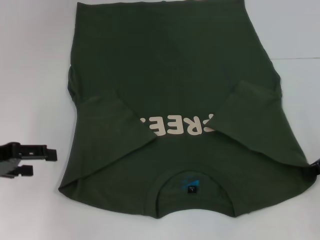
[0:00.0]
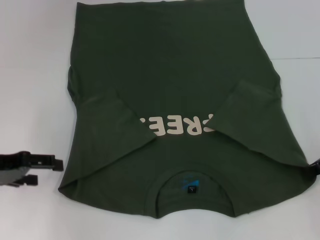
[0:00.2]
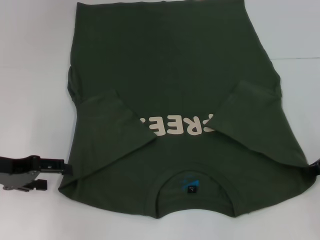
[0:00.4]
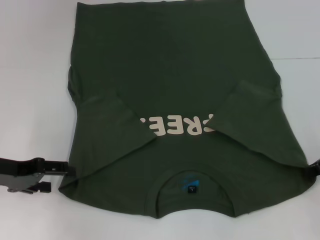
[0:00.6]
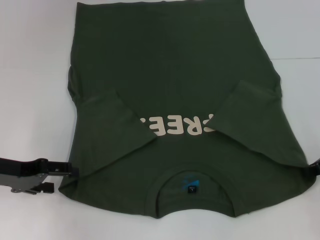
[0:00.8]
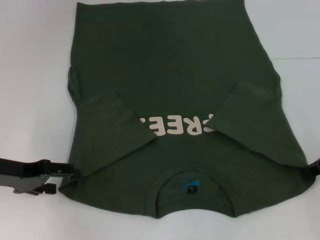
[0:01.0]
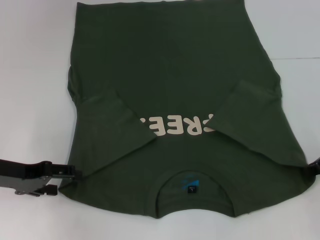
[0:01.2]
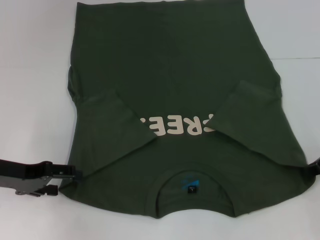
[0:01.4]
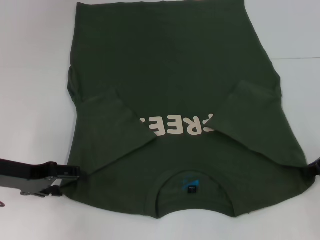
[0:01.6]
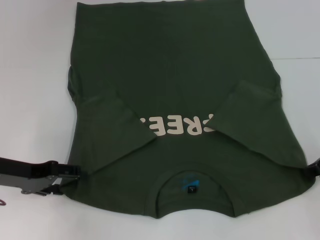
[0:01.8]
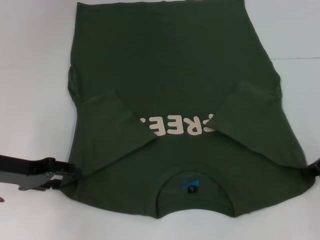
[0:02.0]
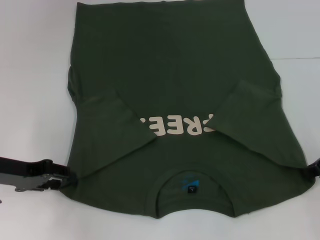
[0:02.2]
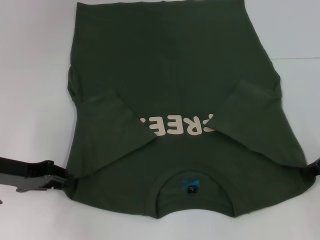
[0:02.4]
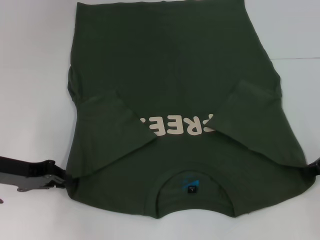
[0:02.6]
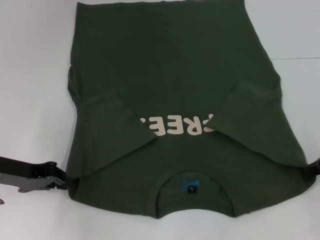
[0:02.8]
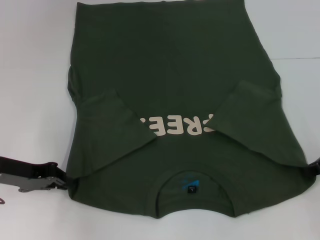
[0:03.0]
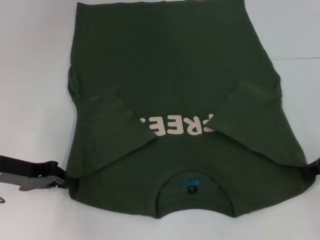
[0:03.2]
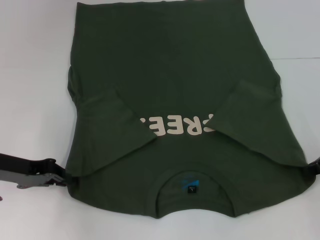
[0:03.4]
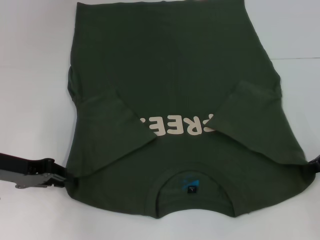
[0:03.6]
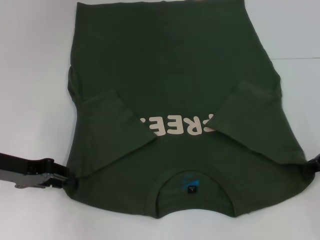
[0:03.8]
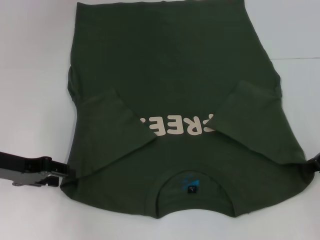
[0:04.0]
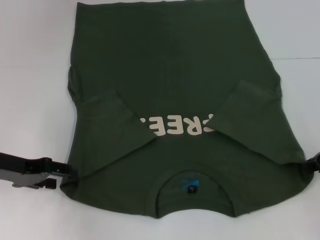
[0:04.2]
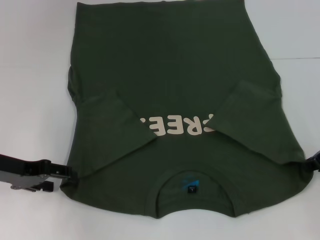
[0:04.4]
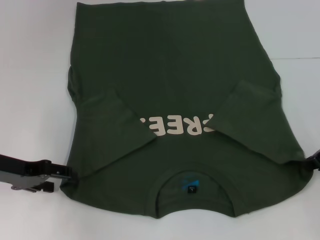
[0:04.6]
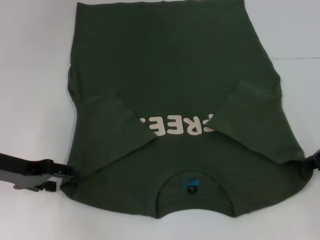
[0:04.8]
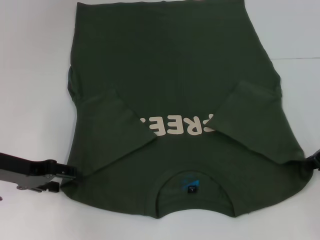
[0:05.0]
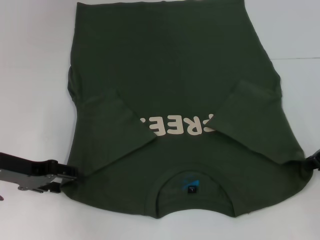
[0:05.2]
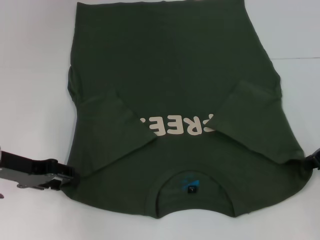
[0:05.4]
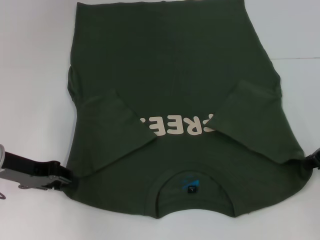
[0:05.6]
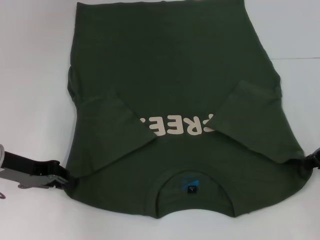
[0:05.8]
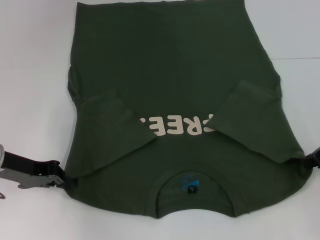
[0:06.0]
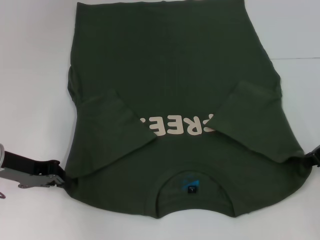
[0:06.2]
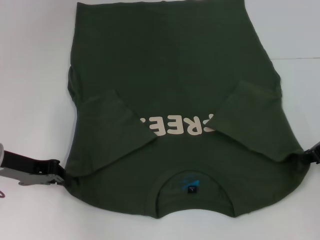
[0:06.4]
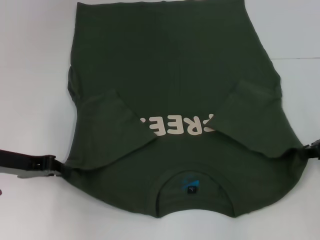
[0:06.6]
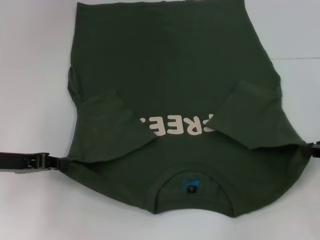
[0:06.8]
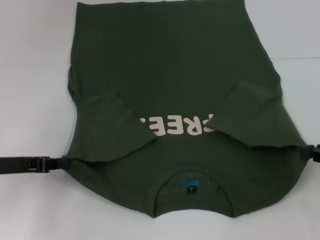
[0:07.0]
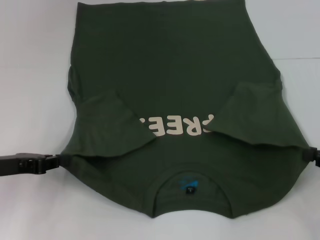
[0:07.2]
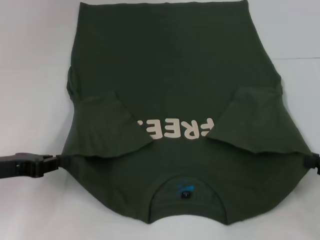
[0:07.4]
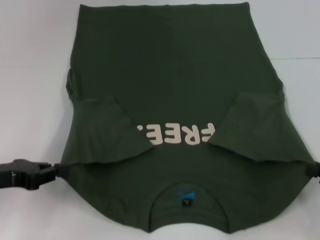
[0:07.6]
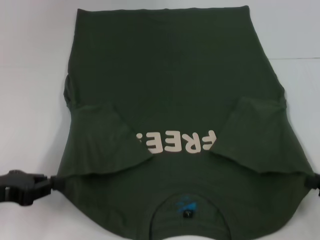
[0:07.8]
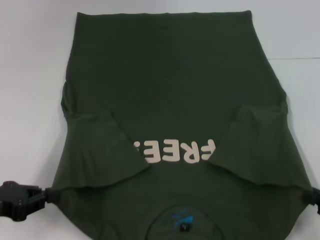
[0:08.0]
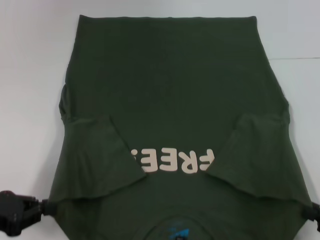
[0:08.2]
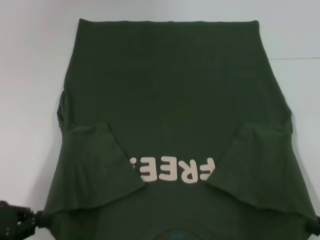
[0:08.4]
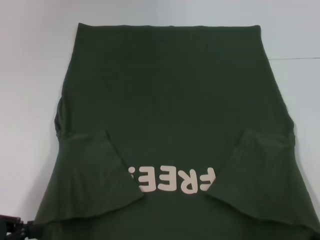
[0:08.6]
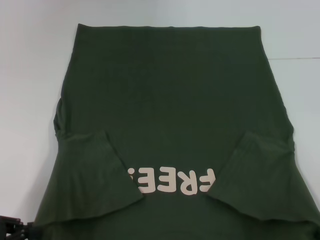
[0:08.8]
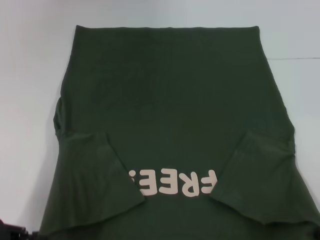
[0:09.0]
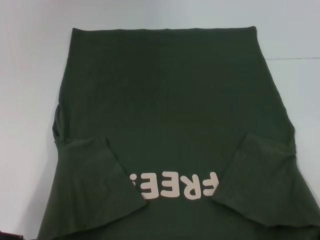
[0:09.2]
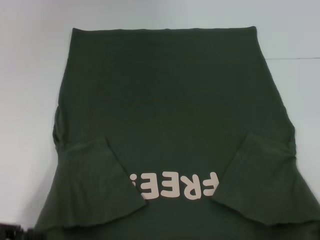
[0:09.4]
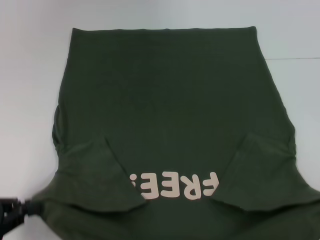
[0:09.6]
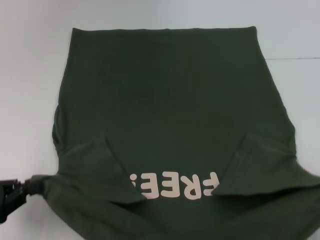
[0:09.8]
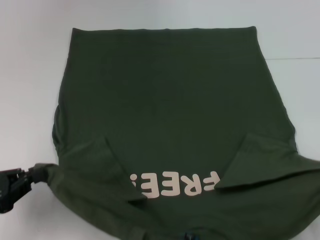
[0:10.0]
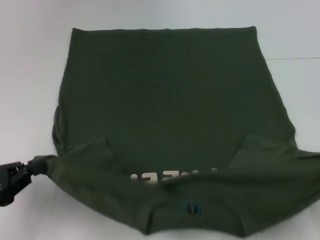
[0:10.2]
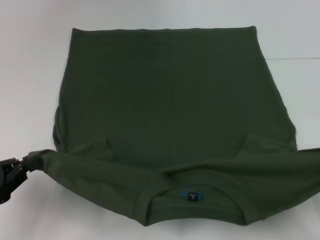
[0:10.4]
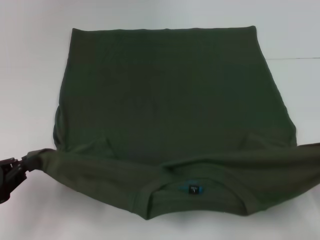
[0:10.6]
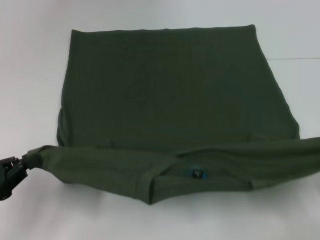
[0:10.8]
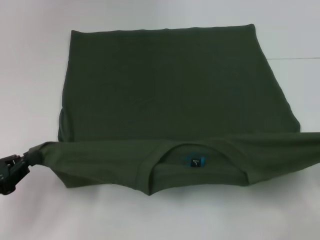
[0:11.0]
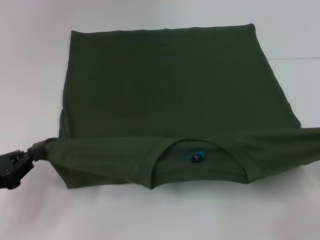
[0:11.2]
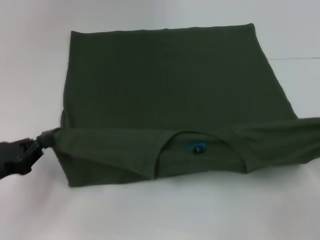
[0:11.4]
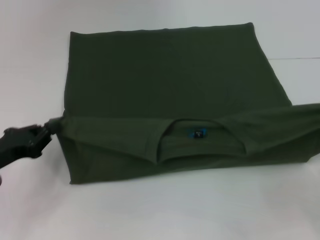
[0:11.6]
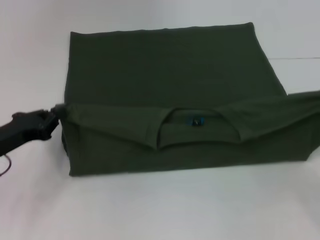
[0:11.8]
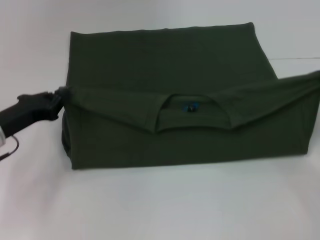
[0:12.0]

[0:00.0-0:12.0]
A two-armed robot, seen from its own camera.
Step, 0:00.0 to 0:06.0: Grab the bottom left corner with your left hand.
0:00.0 to 0:01.6: The left gripper changes place by approximately 5 cm.
0:01.6 to 0:03.0: The left gripper closes its fingers.
0:03.0 to 0:04.4: The left gripper opens.
0:04.4 to 0:06.0: The left gripper closes its fingers.
0:06.0 to 0:07.6: The left gripper goes about 5 cm backward. Meanwhile the right gripper is displaced backward, downward and to the right by about 15 cm.
0:07.6 to 0:09.0: Both grippers travel together backward, some 10 cm.
0:10.4 to 0:12.0: The right gripper travels forward by about 15 cm. Meanwhile the left gripper is displaced forward and to the right by some 15 cm.

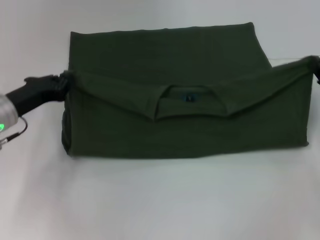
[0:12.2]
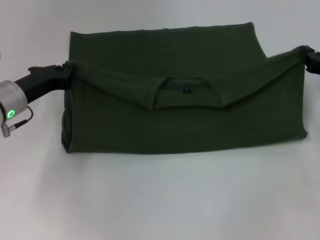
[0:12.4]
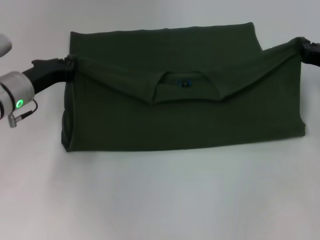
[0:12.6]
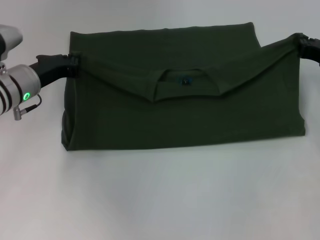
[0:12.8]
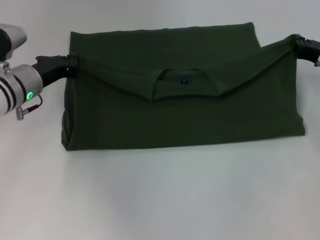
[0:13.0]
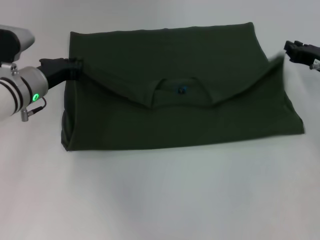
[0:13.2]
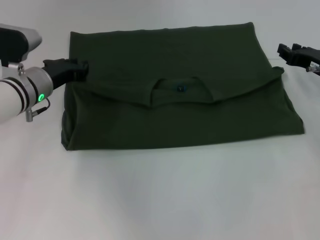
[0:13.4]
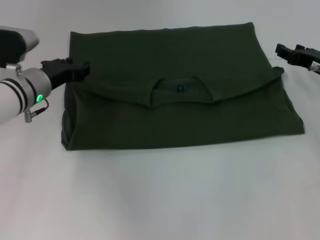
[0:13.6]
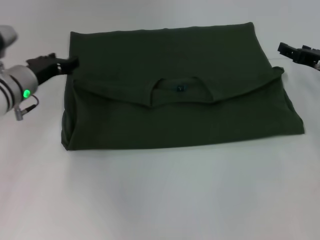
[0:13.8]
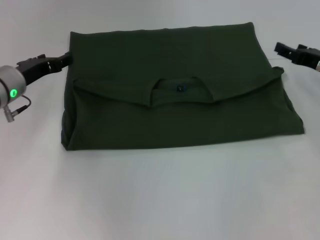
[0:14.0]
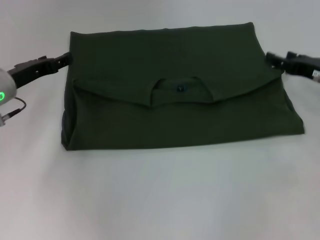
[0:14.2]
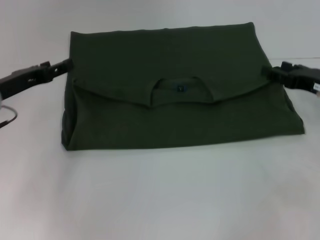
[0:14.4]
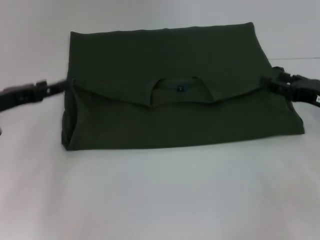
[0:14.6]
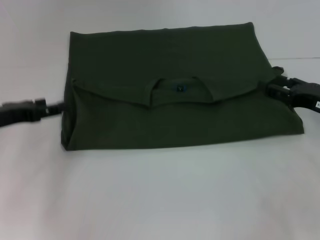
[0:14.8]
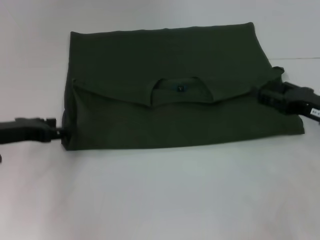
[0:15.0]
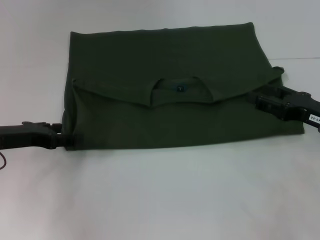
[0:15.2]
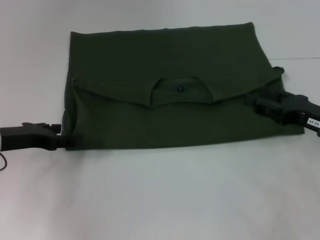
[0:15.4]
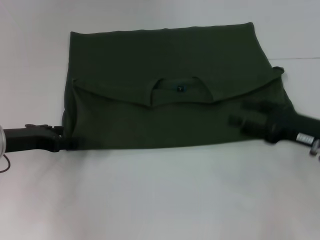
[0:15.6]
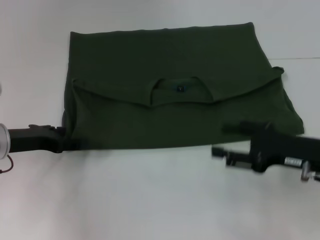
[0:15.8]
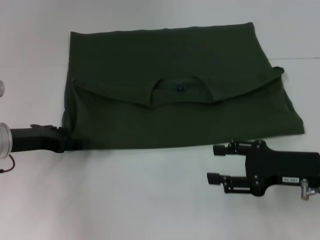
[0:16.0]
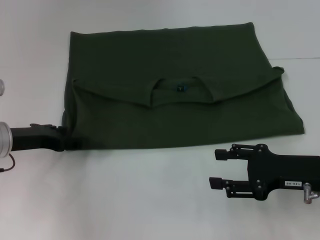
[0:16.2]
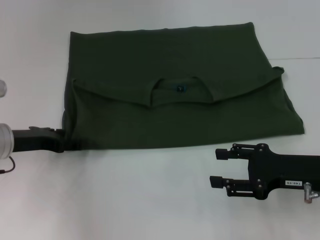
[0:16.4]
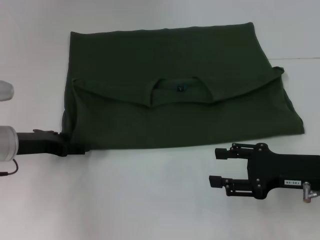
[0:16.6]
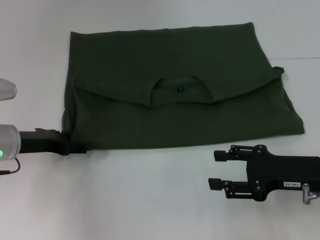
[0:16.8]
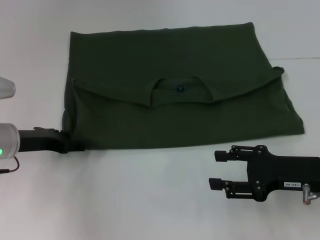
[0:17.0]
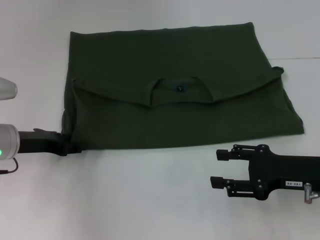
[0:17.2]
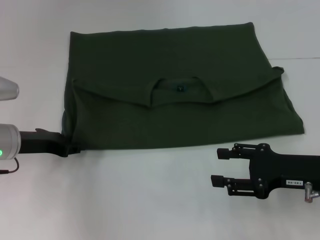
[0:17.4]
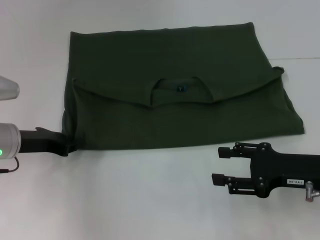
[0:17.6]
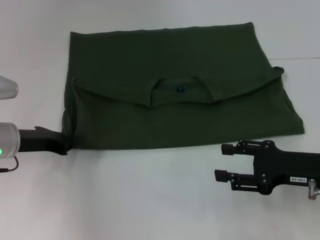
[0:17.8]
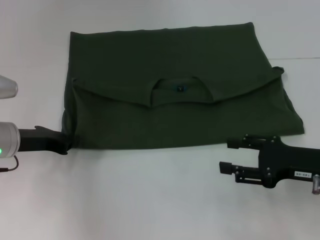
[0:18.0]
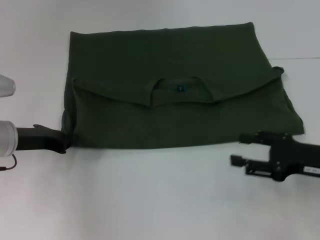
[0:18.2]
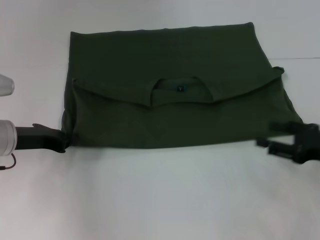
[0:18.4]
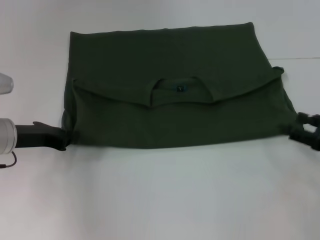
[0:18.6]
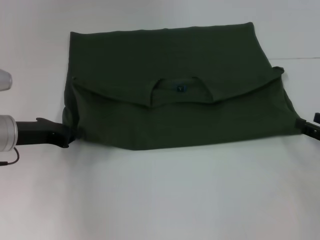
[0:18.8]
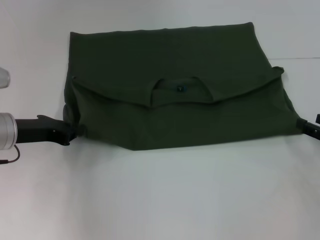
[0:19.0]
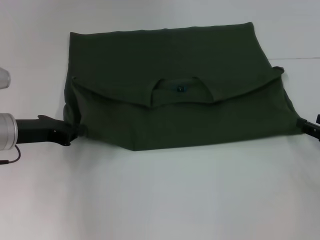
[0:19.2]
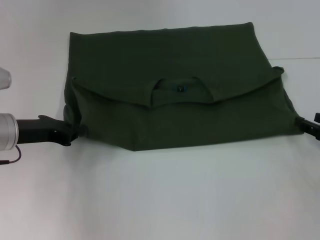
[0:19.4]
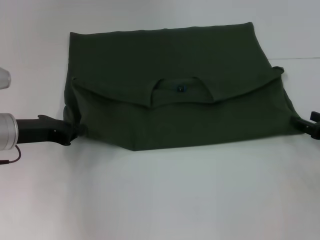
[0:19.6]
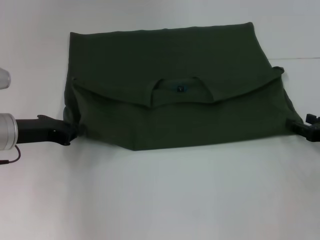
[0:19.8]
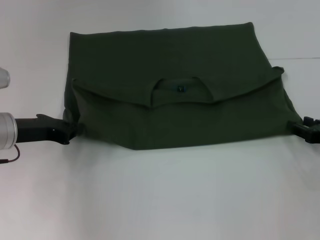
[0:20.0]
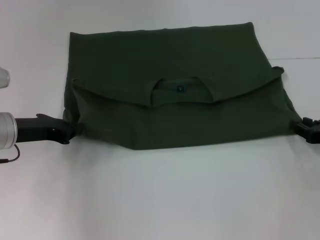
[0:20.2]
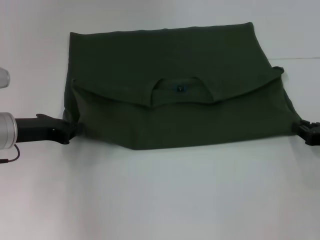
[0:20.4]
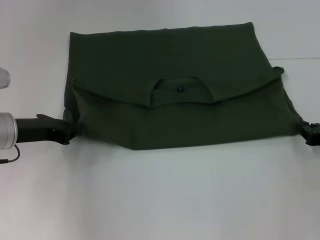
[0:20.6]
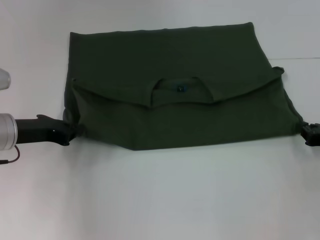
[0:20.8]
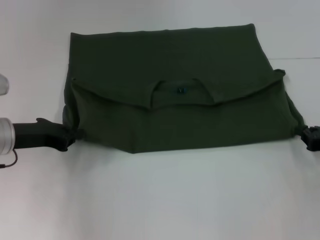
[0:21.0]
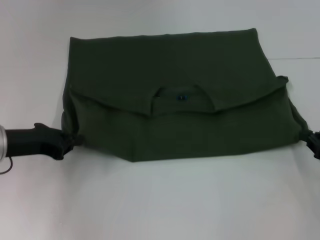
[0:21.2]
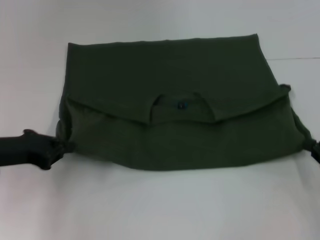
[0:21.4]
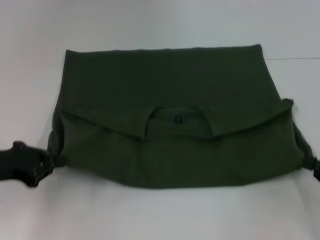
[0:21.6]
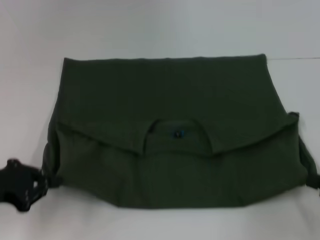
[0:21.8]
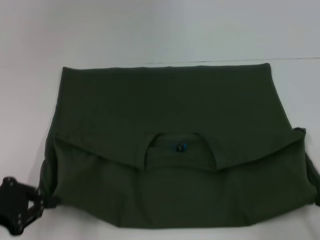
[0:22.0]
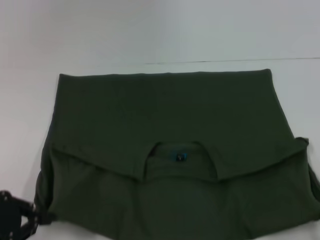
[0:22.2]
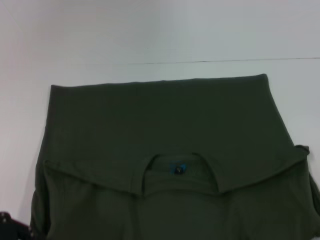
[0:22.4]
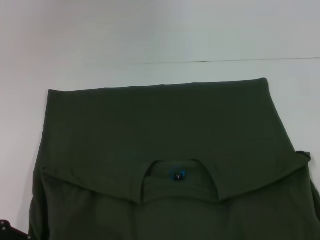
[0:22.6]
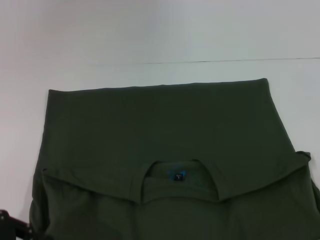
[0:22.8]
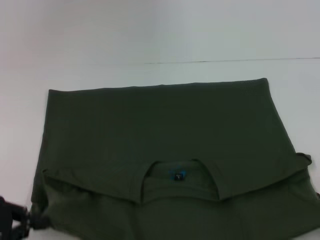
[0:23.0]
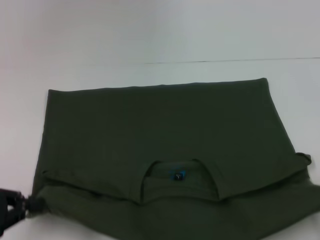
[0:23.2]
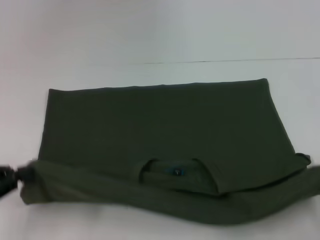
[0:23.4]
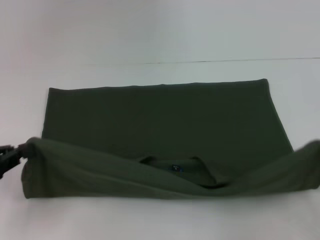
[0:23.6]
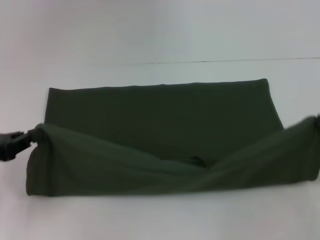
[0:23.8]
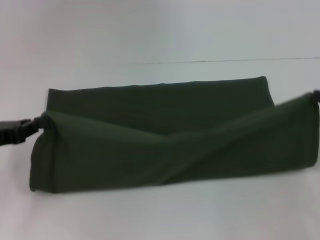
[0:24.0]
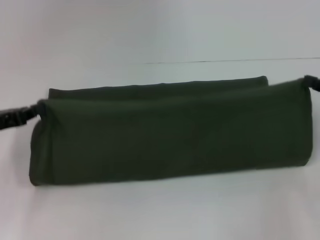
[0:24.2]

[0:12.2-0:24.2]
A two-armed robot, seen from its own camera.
Step, 0:13.4 to 0:22.4: Pull the clothes with your left hand.
Step, 0:13.4 to 0:22.4: Pull the clothes with your right hand.
0:12.2 to 0:13.8: The two grippers go approximately 5 cm forward. The left gripper opens. Meanwhile the right gripper opens.
0:13.8 to 0:15.2: The right gripper heads backward, covering some 10 cm. Meanwhile the left gripper is displaced backward and to the left by approximately 10 cm, and opens its fingers.
0:15.2 to 0:16.6: The right gripper changes place by about 5 cm.
0:16.6 to 0:18.2: The left gripper closes.
0:18.2 to 0:19.8: The right gripper shifts about 5 cm to the right.
0:19.8 to 0:21.2: The right gripper closes.
0:21.2 to 0:22.6: The grippers both shift backward by about 15 cm.
0:22.6 to 0:24.2: The left gripper shifts some 10 cm forward, while the right gripper travels forward by some 20 cm.
